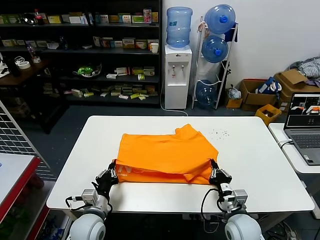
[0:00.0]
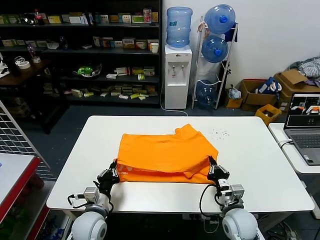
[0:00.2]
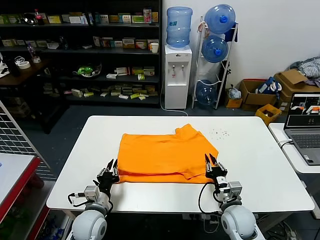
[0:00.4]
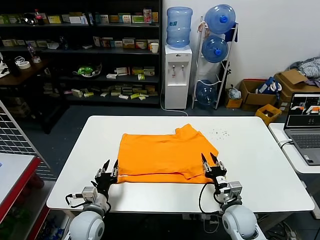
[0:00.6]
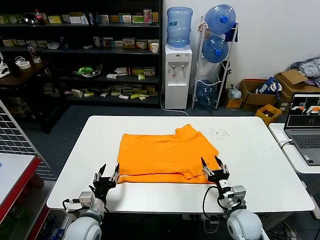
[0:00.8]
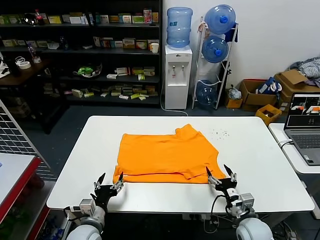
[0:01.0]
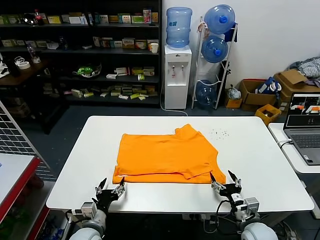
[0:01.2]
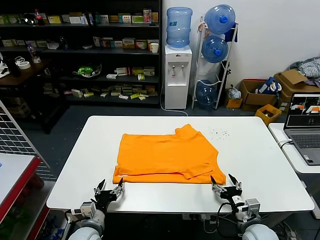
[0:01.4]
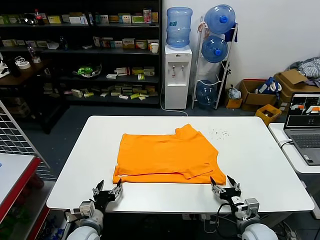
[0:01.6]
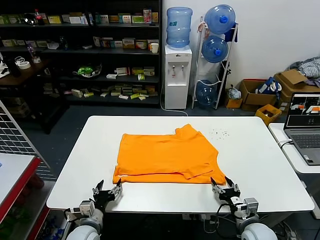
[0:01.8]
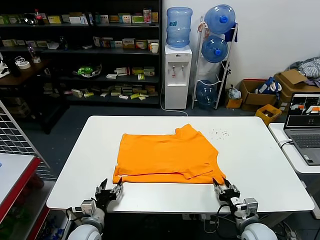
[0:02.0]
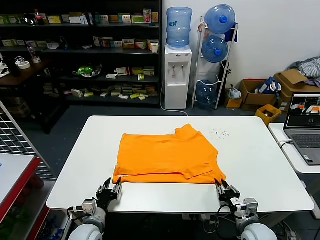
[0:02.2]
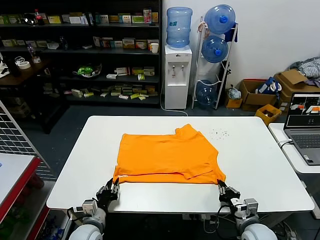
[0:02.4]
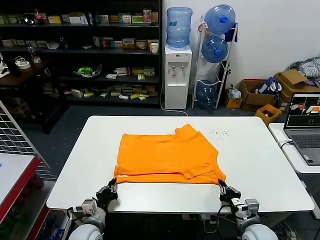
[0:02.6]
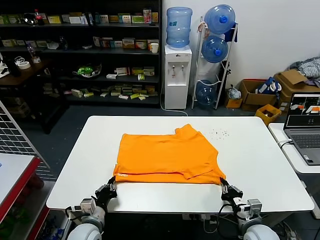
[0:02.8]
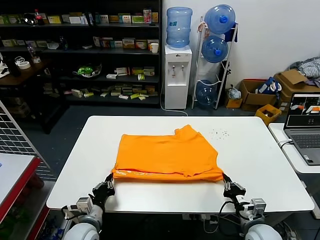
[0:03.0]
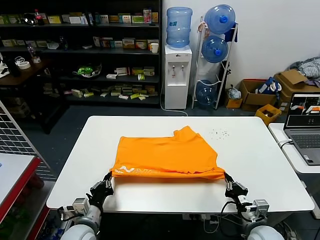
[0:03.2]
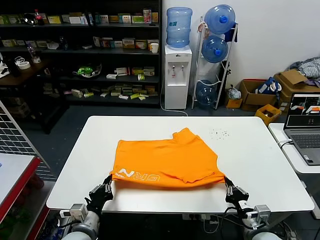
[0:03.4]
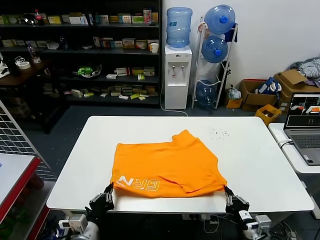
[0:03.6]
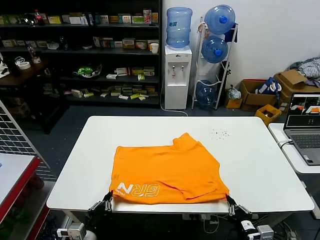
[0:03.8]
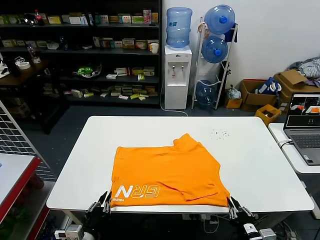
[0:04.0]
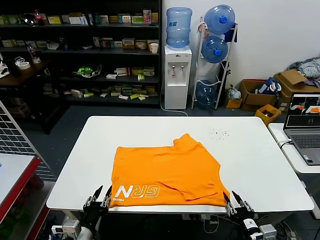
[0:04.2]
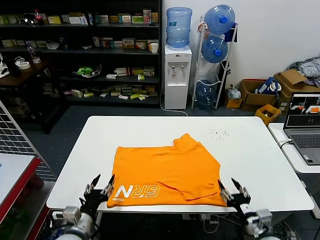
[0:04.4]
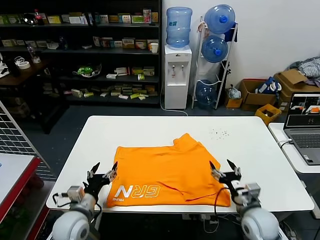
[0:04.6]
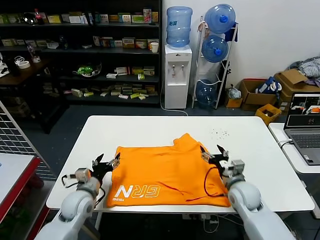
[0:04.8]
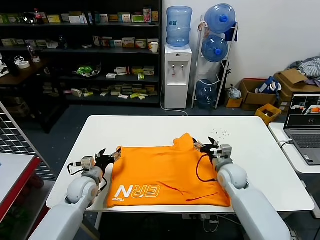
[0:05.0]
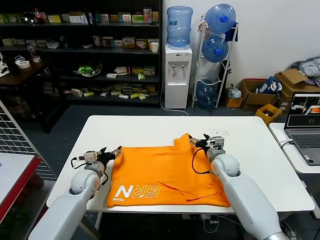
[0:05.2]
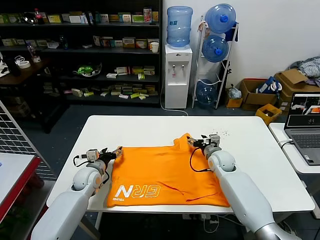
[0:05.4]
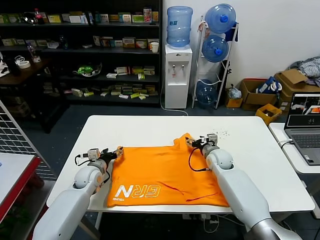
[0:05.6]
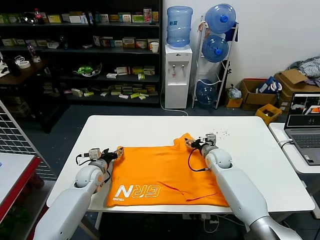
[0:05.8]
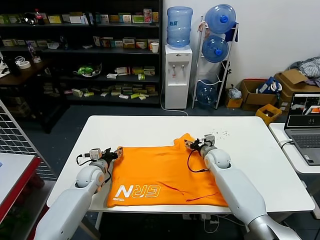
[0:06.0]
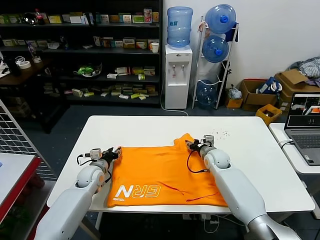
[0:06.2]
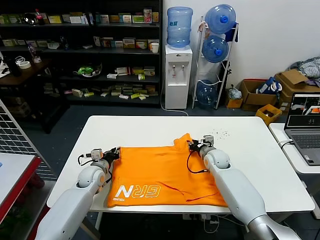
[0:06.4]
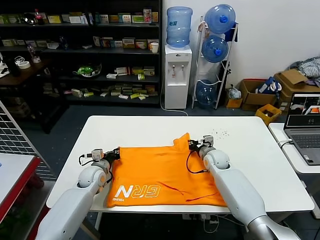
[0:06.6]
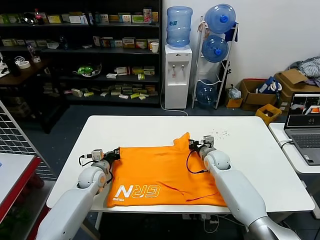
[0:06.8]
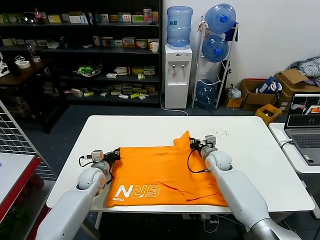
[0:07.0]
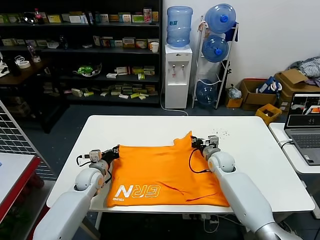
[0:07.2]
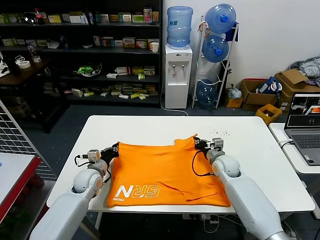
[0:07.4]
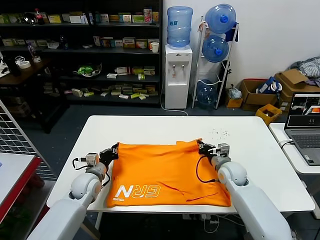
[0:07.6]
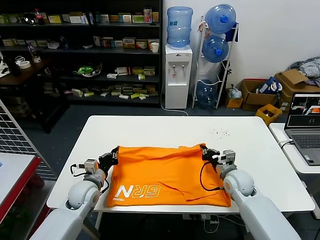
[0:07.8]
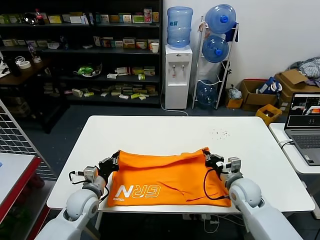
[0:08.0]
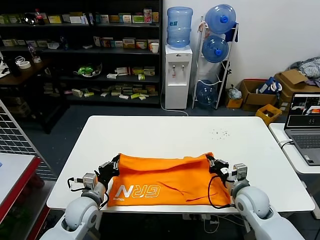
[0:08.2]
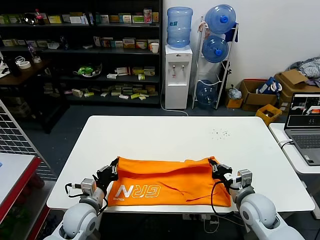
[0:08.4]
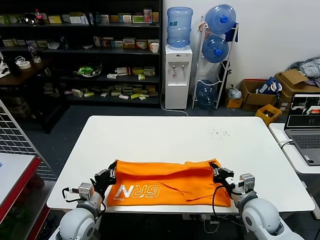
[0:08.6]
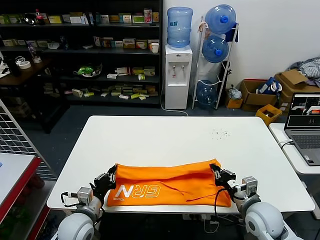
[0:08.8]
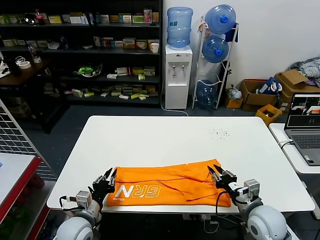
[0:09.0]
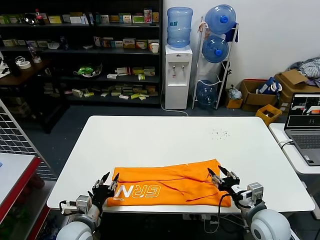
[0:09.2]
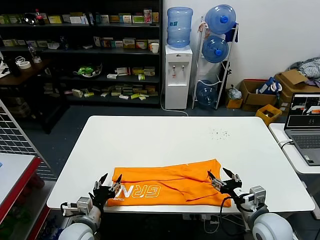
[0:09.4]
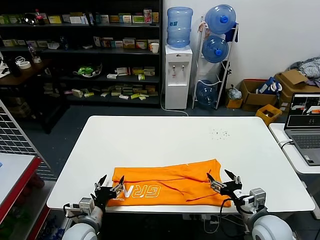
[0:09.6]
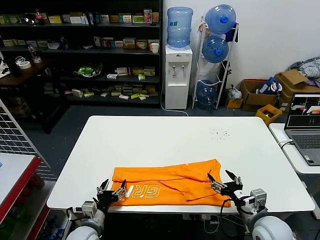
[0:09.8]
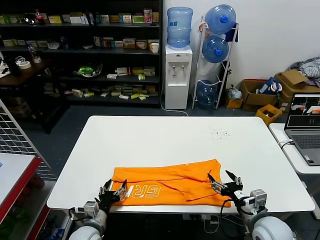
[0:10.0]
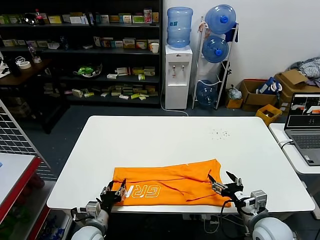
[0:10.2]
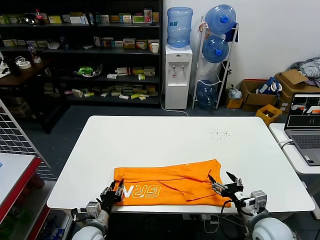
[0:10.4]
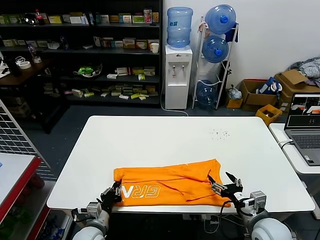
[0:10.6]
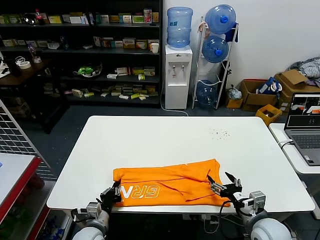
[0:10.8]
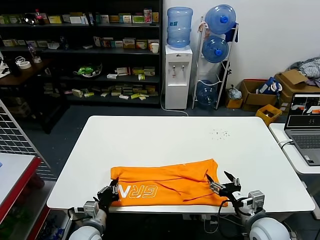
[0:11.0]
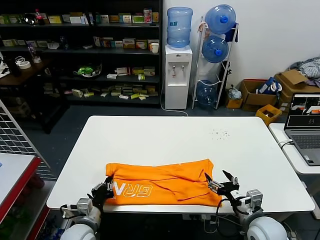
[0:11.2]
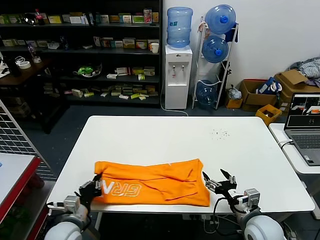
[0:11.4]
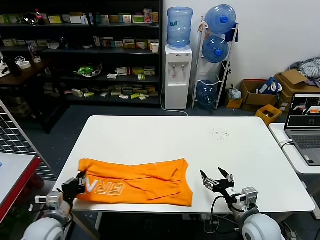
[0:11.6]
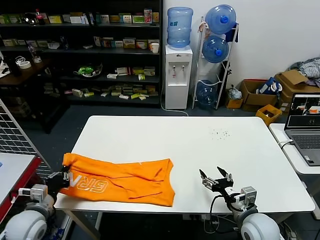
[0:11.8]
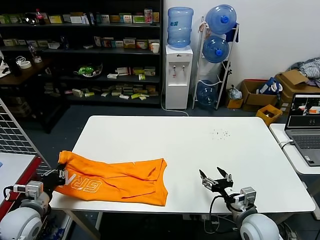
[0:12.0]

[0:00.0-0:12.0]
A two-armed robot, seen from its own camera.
Task of the whole recording: fold and organize the clothes.
Step, 0:00.6 to 0:03.8: Drag the clothes downward with both gripper.
Step, 0:04.2 to 0:06.6: use both grippers simultaneously to clamp the upper edge of the clothing fabric.
Step, 0:06.8 to 0:08.8: use both grippers to drag the upper edge of the fabric backward and fold it over the lower edge.
Step, 0:09.2 to 0:10.6: use the left gripper to clamp the left edge of the fabric.
0:00.0 to 0:01.6: The right gripper shifts about 5 cm to the right, and opens. Meanwhile the left gripper ends up roughly 5 cm from where it was, and opens up.
0:01.6 to 0:03.0: The right gripper closes. Meanwhile the left gripper closes its fingers.
0:03.0 to 0:04.4: The left gripper is displaced backward by roughly 5 cm, and opens. Meanwhile the right gripper moves some 10 cm backward and comes back, and opens.
0:04.4 to 0:06.0: The two grippers go roughly 30 cm forward.
0:06.0 to 0:07.6: The left gripper closes; the right gripper goes some 10 cm backward, and closes up.
0:07.6 to 0:09.0: Both grippers travel together backward, some 15 cm. The right gripper opens up.
0:09.0 to 0:10.4: The left gripper shifts roughly 5 cm downward, and opens, then closes again; the right gripper opens.
0:10.4 to 0:12.0: The left gripper heads to the left and upward, covering approximately 20 cm, and closes up.

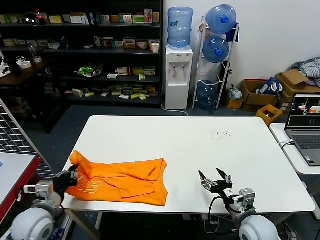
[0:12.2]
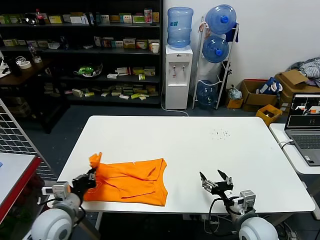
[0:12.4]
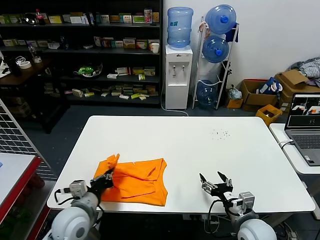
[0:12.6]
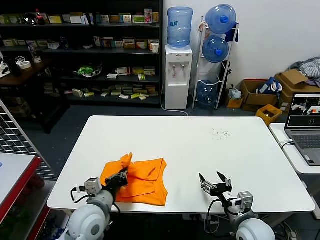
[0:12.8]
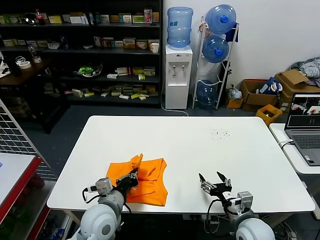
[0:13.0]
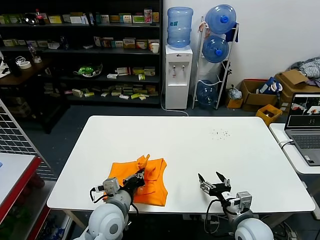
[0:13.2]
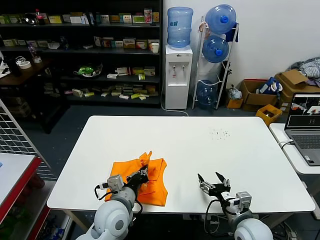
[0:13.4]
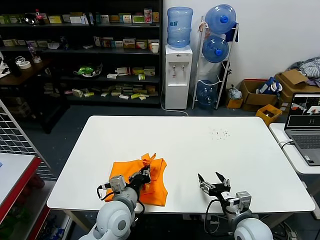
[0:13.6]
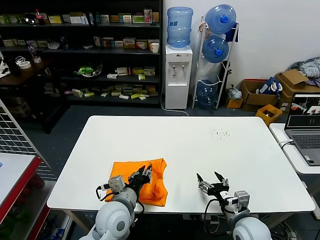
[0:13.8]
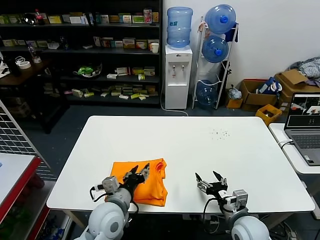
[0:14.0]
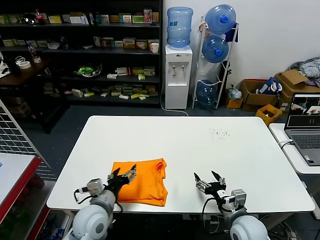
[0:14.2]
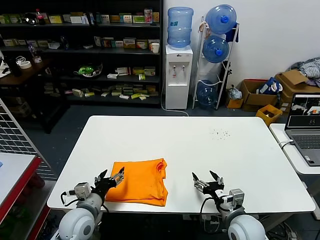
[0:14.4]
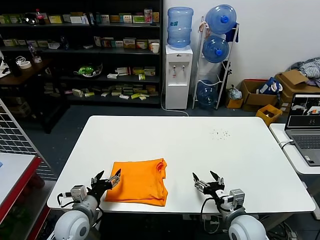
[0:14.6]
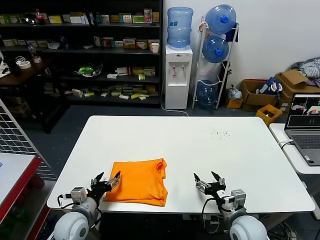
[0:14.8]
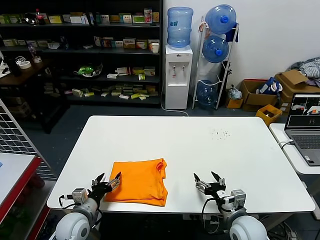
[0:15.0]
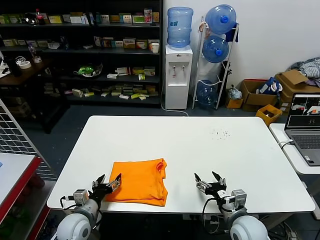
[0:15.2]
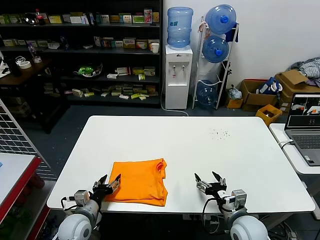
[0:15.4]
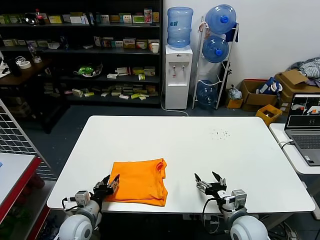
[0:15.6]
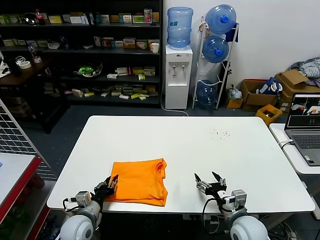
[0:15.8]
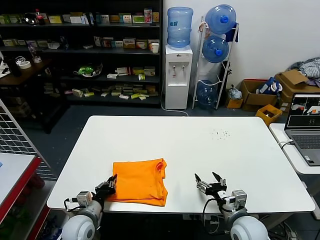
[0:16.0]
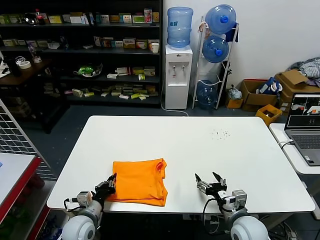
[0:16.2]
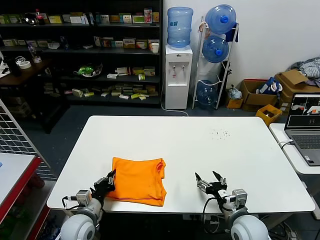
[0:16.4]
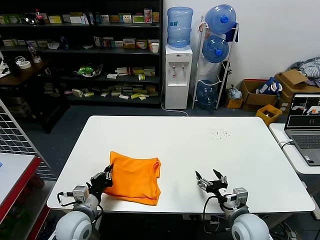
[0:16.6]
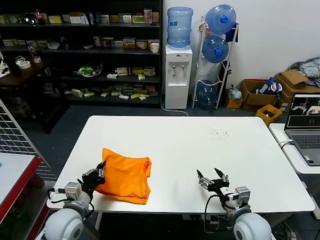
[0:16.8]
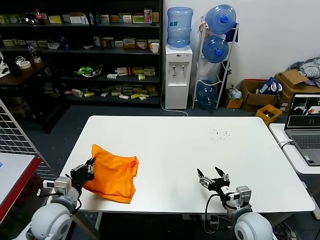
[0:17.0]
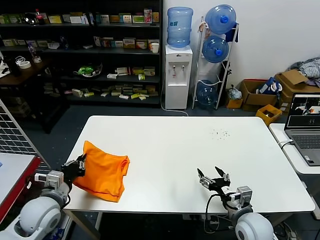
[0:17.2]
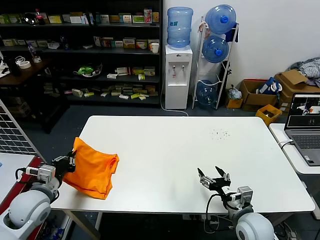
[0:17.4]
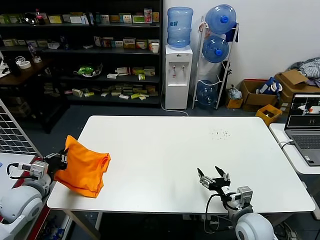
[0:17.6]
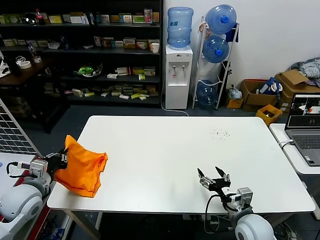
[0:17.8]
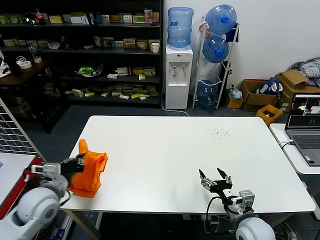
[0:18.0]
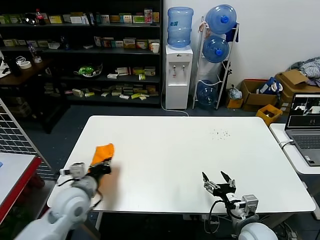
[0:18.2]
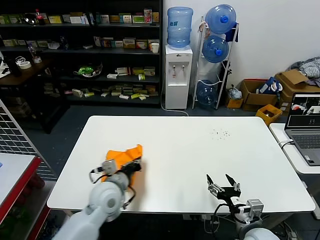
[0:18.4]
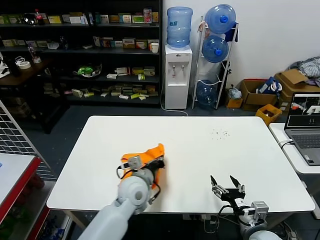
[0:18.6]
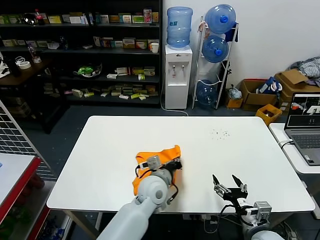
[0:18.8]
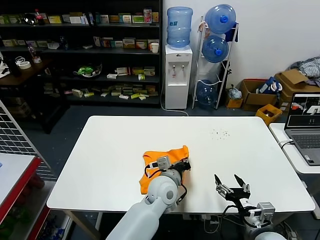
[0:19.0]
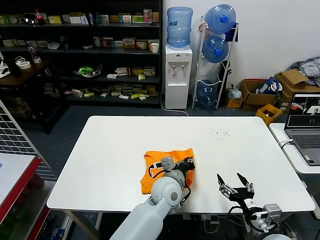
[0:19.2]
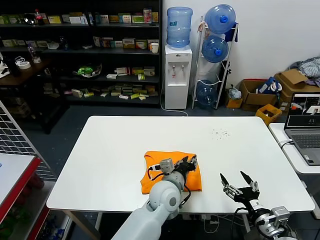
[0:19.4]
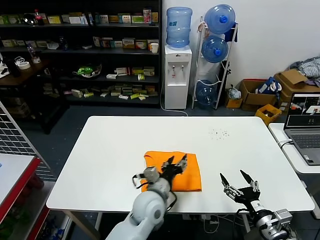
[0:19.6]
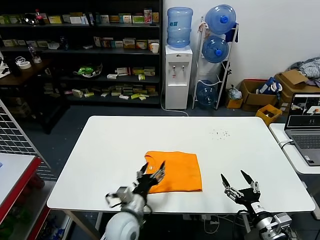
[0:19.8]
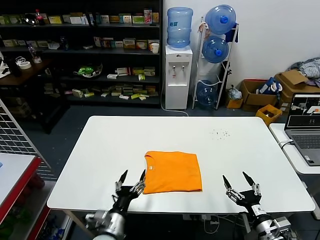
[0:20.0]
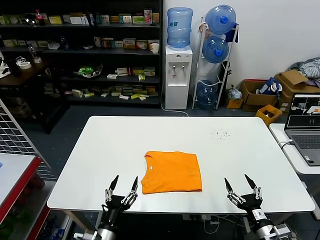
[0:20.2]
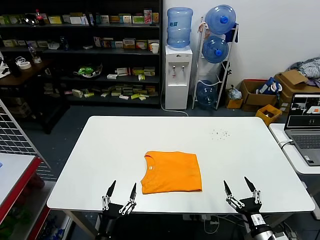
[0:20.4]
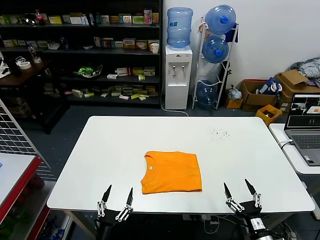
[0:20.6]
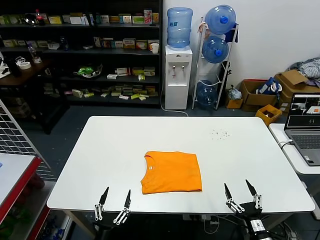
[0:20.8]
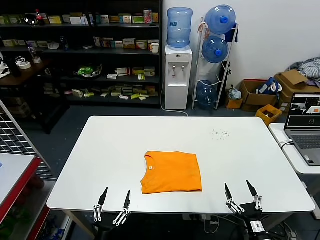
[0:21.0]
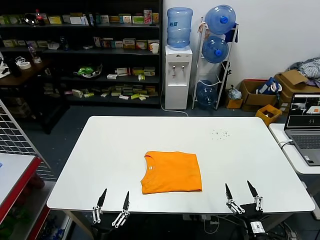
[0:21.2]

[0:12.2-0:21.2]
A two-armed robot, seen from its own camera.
Task of the whole recording: fold and organize the clothes.
Step, 0:12.2 to 0:13.8: use the left gripper to drag the left edge of the fabric to the left and folds it over the right edge.
Step, 0:14.0 to 0:19.2: Flip the folded clothes over with left gripper.
0:12.2 to 0:13.8: The left gripper goes roughly 25 cm to the right.
0:13.8 to 0:15.2: The left gripper heads to the left and downward, covering some 15 cm, and opens.
0:15.2 to 0:16.6: The left gripper closes.
0:16.6 to 0:18.2: The left gripper is displaced upward by roughly 10 cm, and travels to the left and back again, some 15 cm each way.
0:18.2 to 0:19.8: The left gripper is displaced to the right by approximately 20 cm, and opens. The right gripper moves to the right and backward, roughly 10 cm.
0:19.8 to 0:21.2: The right gripper moves downward, about 10 cm; the left gripper heads backward, to the left and downward, covering approximately 25 cm.
